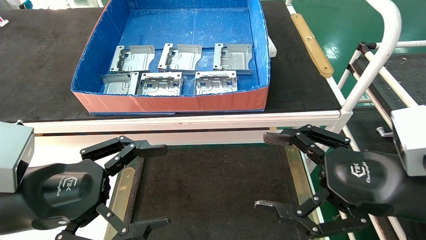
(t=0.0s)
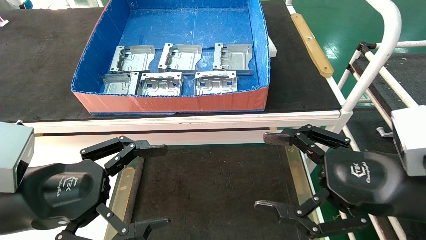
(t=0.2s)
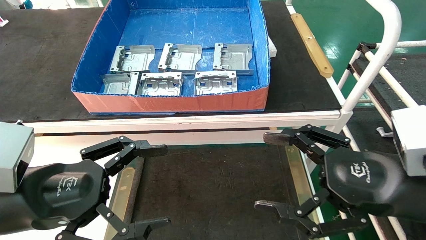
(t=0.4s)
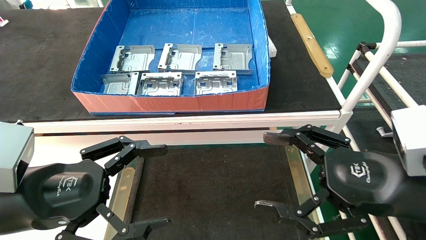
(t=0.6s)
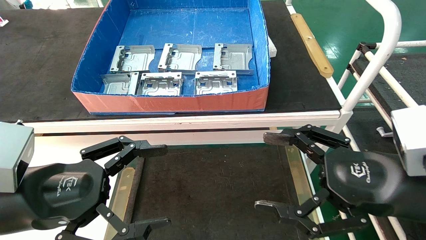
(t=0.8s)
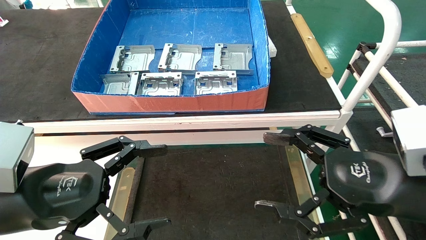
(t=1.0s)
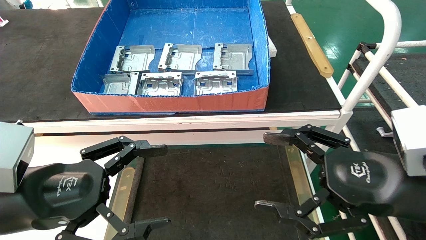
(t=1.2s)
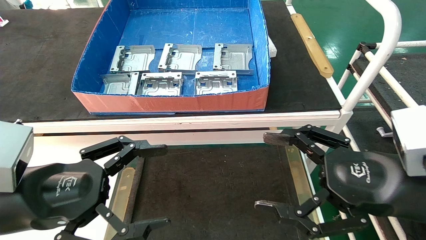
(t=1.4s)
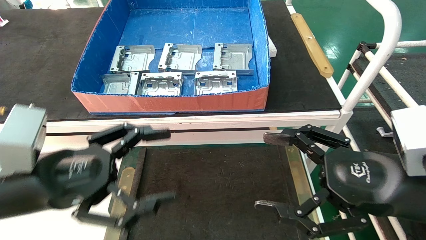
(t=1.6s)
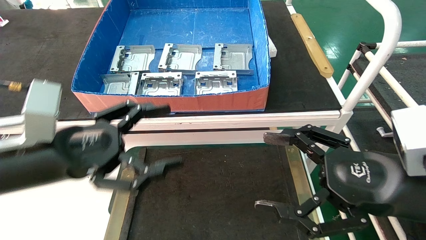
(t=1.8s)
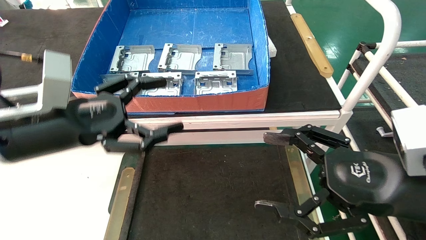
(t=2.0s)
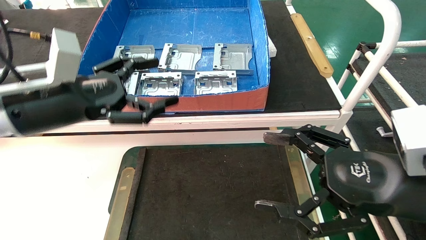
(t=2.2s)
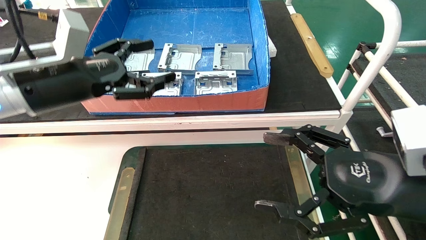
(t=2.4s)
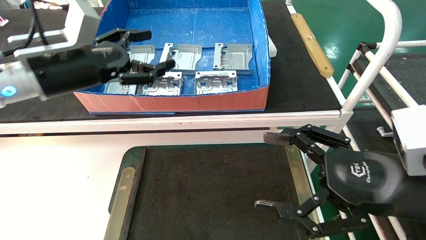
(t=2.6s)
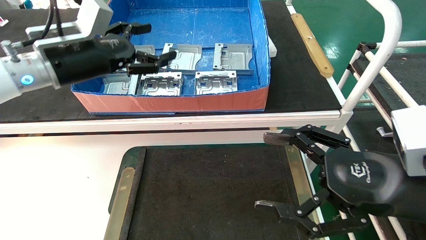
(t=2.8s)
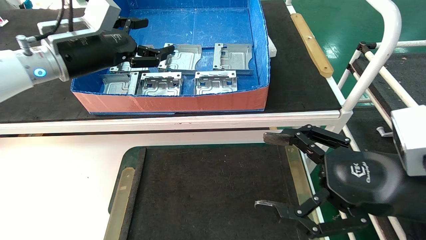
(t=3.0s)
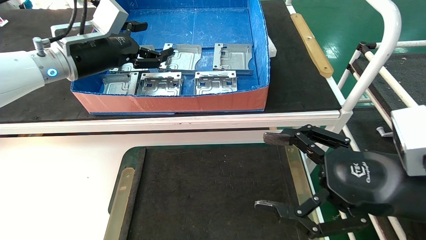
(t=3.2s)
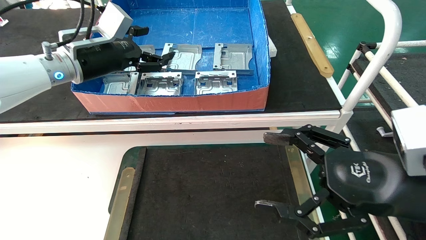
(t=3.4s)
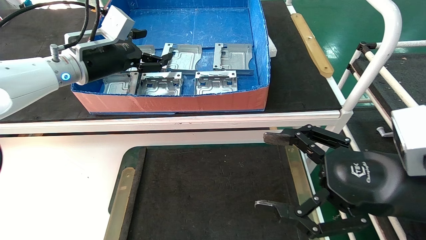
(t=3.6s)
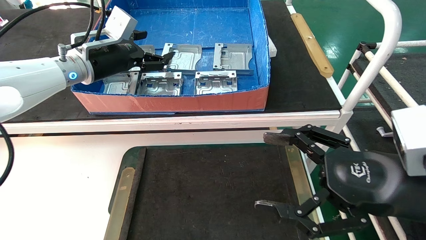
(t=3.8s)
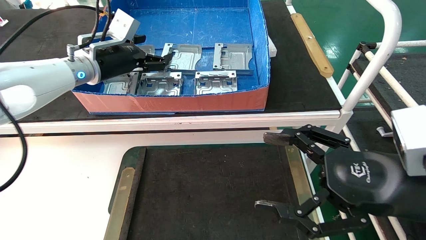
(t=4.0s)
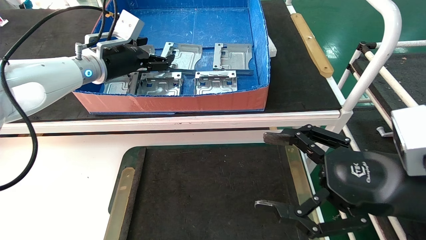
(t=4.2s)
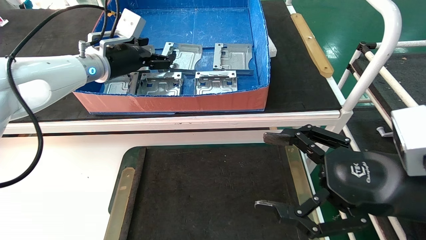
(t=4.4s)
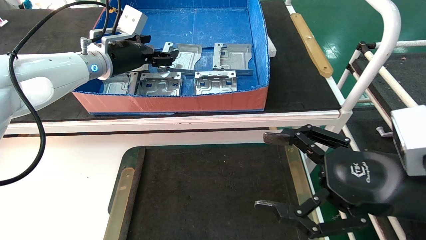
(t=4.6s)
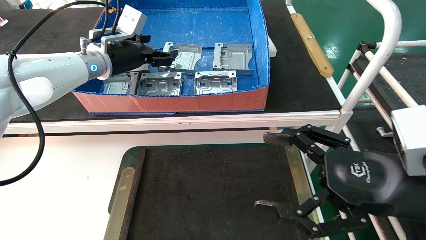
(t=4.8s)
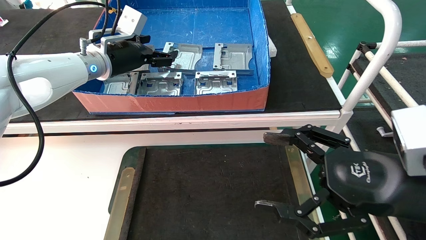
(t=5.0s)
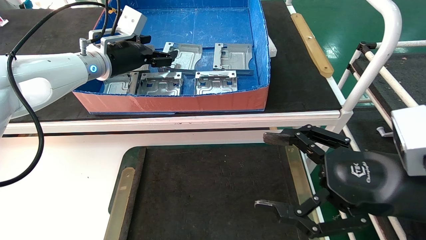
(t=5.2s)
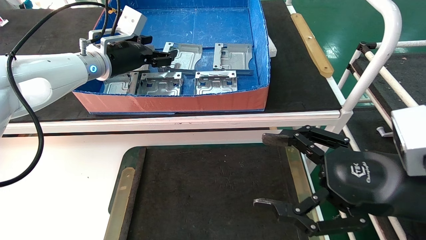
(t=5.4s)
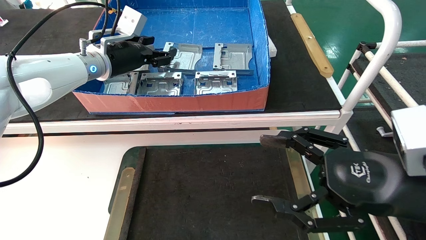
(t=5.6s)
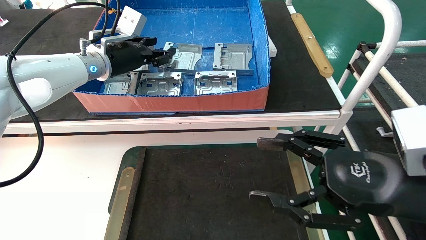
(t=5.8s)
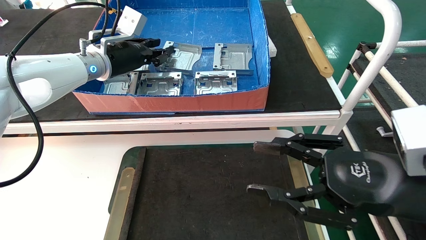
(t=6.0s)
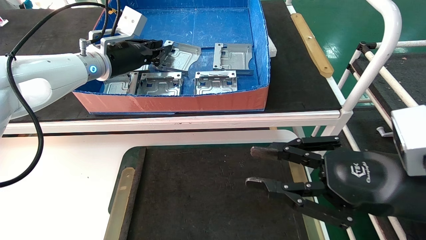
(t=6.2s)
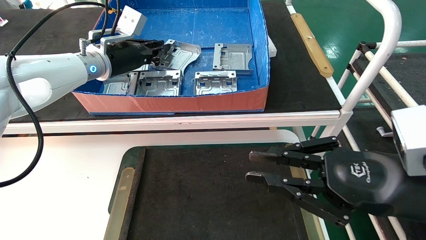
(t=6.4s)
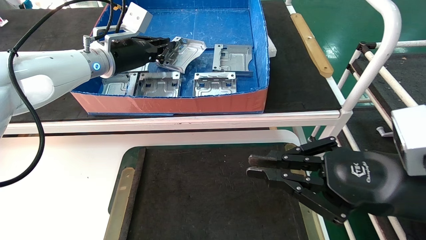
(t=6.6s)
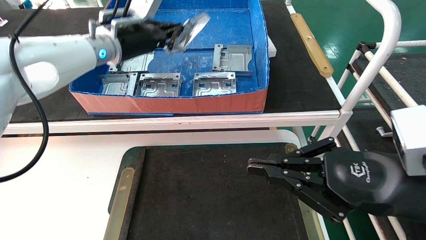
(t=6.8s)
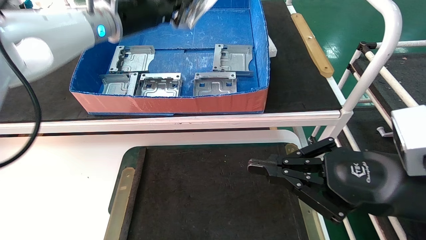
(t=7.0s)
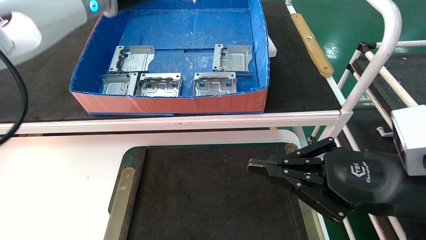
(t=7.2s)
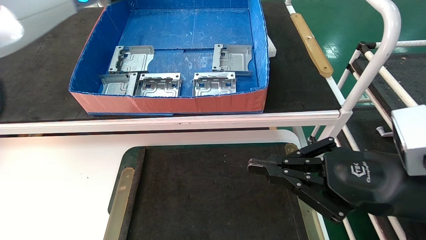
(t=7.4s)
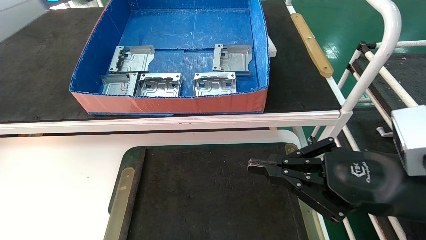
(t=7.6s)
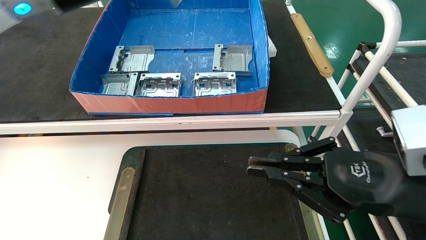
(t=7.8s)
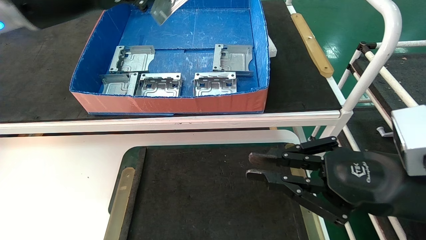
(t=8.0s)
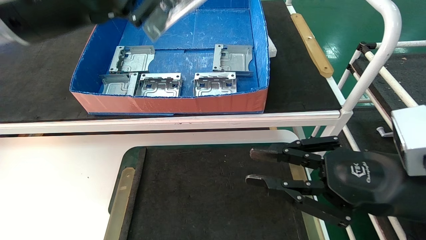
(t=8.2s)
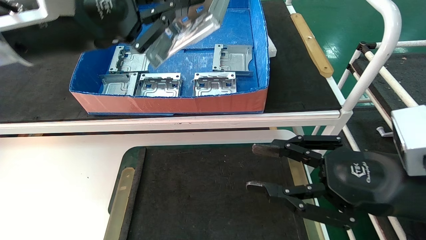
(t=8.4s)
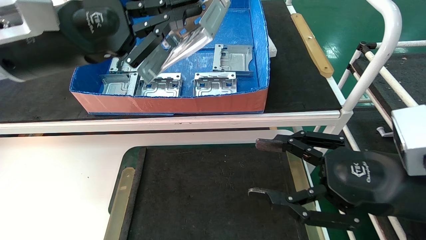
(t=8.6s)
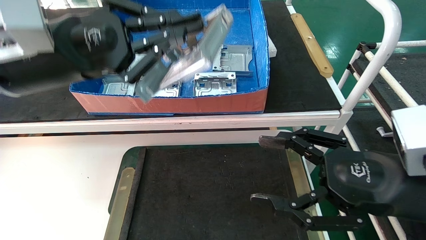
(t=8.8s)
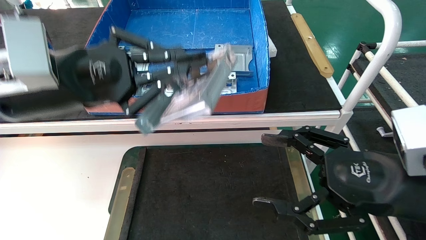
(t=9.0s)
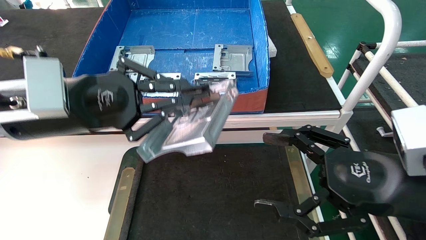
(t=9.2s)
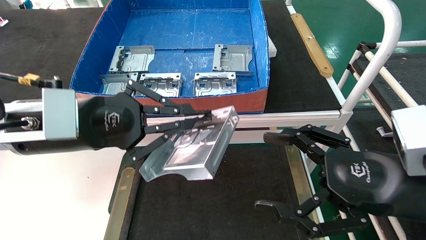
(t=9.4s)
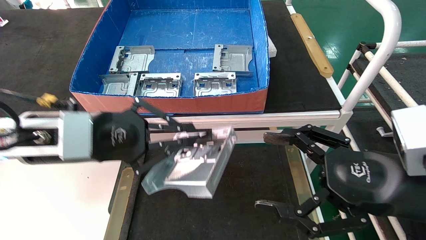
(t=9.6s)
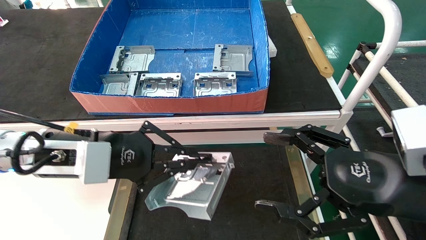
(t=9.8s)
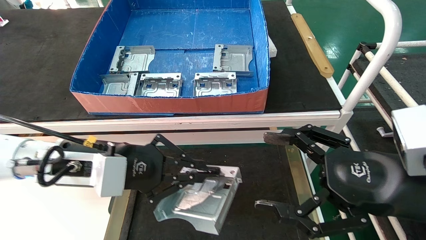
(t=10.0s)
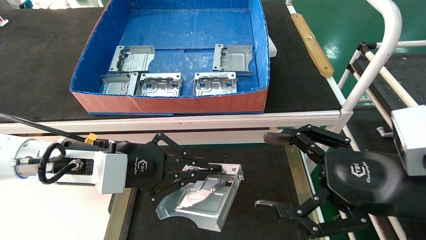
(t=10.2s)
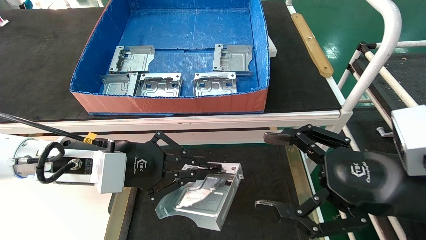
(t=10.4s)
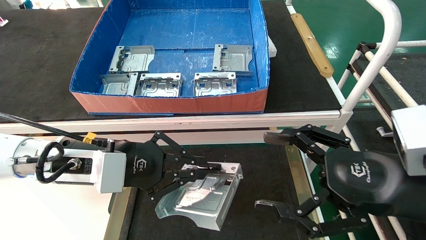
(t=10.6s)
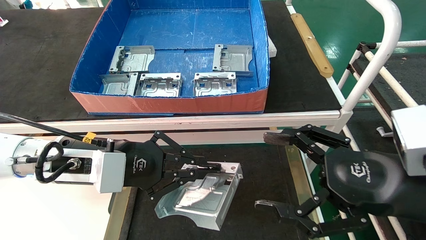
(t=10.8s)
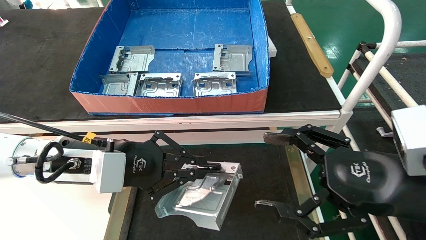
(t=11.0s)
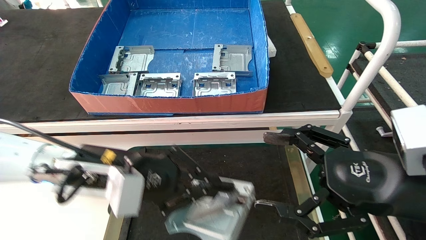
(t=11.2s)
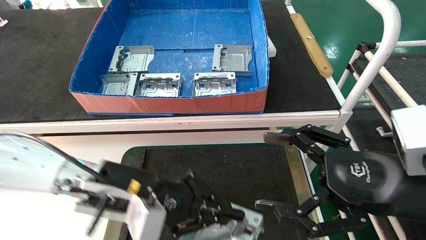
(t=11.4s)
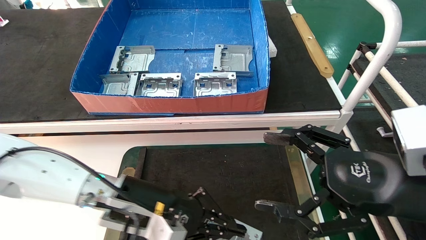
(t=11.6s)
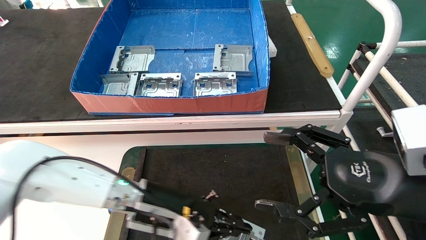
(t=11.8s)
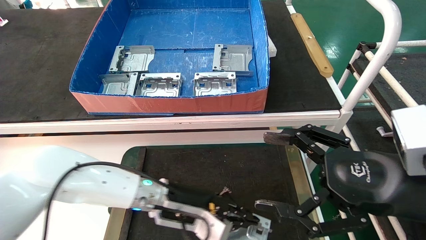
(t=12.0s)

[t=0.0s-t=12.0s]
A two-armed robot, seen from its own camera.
Task of the whole recording: take the accessories out of the box and place them on the table.
Step, t=1.6s to t=6.2s: Pick up the hard drive bracket from the feeding area.
t=0.0s to t=1.6s: There are only small adjustments of the grippers.
t=1.6s to t=3.0s: The left gripper heads forward and upward, covering roughly 20 cm.
t=3.0s to t=4.4s: The left gripper goes about 10 cm forward.
t=4.4s to t=6.0s: The left gripper closes its fingers; the right gripper closes its fingers.
t=6.0s to t=7.6s: The left gripper shifts about 15 cm backward and upward, and closes up; the right gripper closes.
t=7.6s to t=9.0s: The right gripper opens its fingers, while the left gripper heads downward and backward, covering approximately 15 cm.
t=9.0s to t=10.4s: The left gripper is displaced downward by approximately 10 cm.
t=10.4s to t=12.0s: The left gripper moves to the right, downward and forward, about 15 cm.

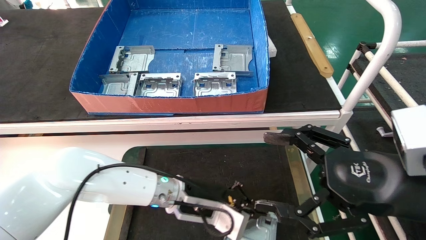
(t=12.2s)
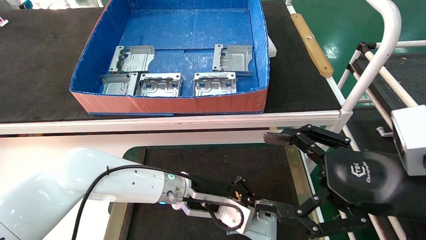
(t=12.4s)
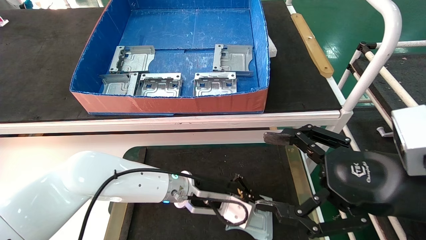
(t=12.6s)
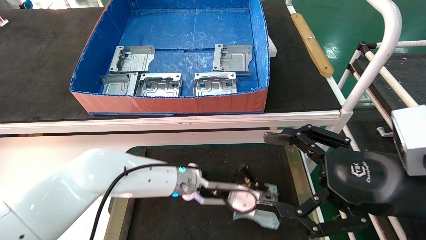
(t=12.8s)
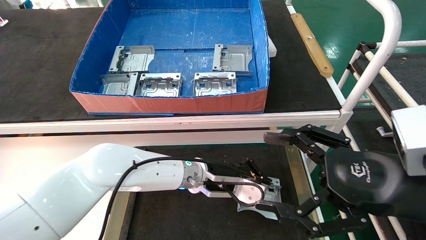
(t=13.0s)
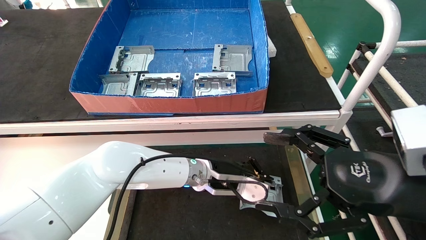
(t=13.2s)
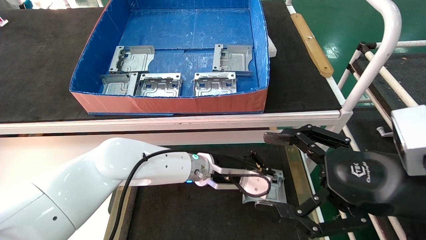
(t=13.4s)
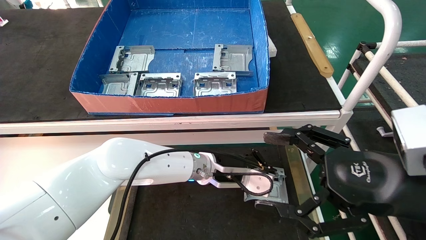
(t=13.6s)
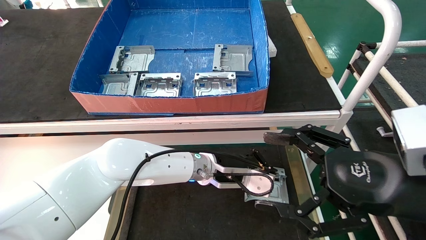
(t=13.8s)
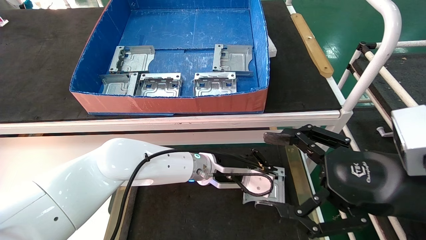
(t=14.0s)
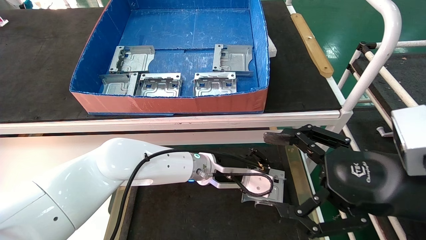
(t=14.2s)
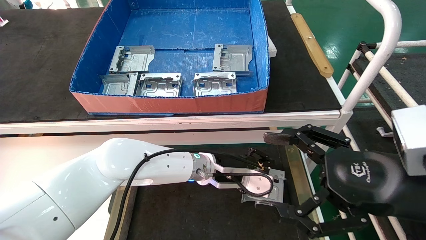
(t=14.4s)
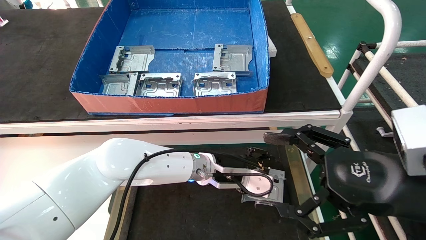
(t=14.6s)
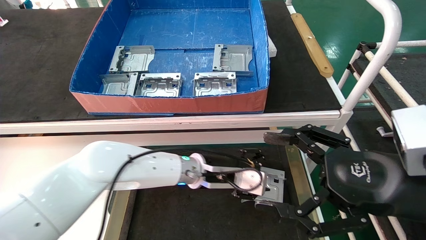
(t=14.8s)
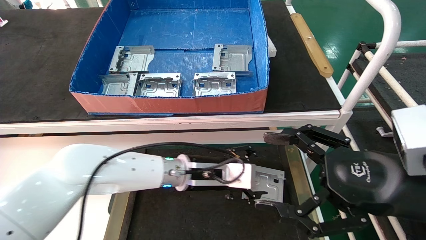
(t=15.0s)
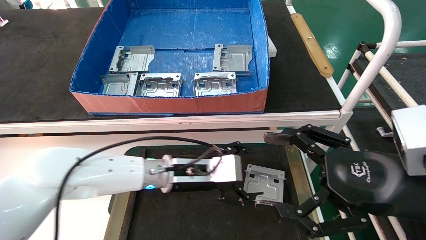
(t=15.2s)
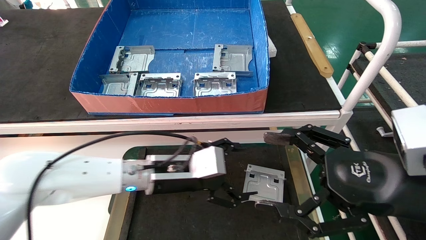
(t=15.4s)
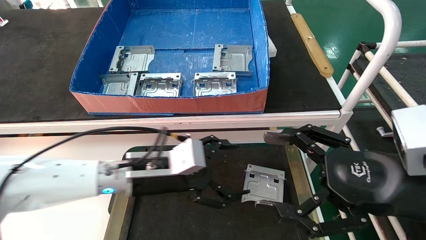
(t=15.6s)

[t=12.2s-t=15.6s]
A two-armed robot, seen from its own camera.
Task of the whole recording: take the accessories out of the box and place them on the table.
Step, t=12.2s to t=14.2s: Place the hard drive bracket into the box.
t=12.2s to t=13.8s: The left gripper moves to the right and forward, about 10 cm.
t=13.8s to t=15.6s: The left gripper goes some 15 cm to the left and backward, and opens up.
